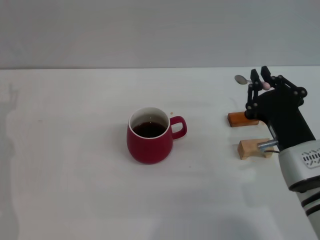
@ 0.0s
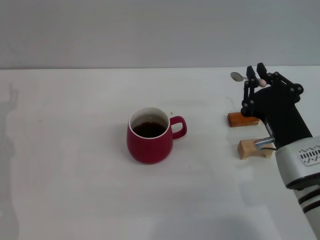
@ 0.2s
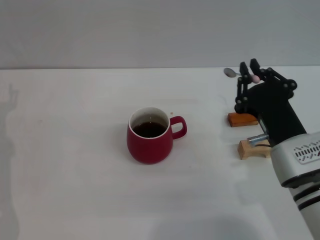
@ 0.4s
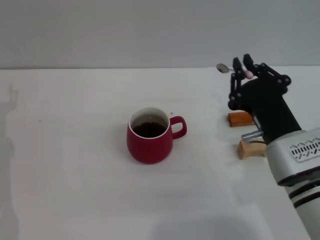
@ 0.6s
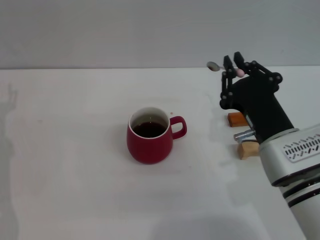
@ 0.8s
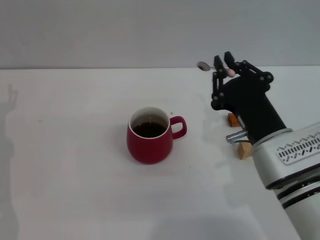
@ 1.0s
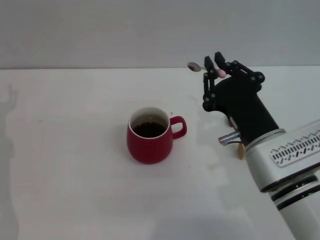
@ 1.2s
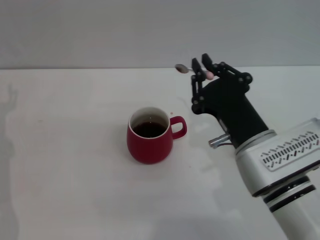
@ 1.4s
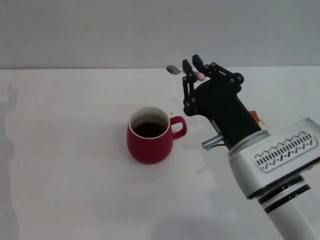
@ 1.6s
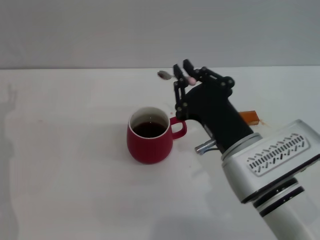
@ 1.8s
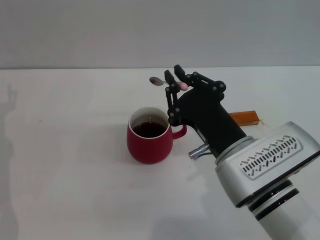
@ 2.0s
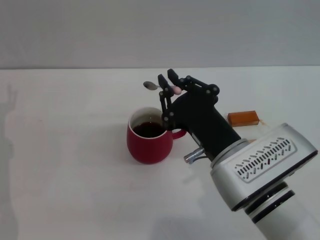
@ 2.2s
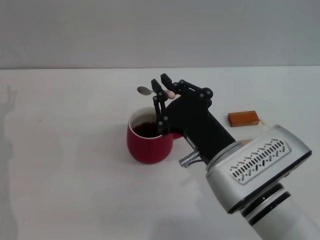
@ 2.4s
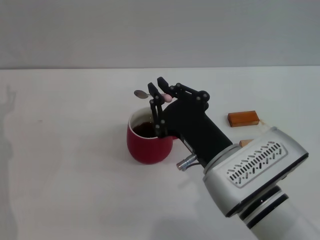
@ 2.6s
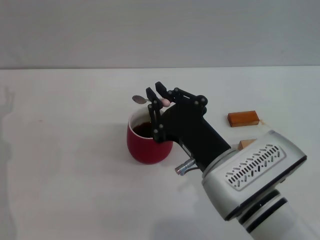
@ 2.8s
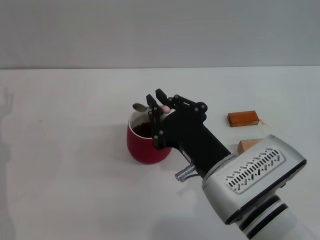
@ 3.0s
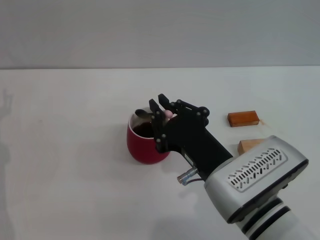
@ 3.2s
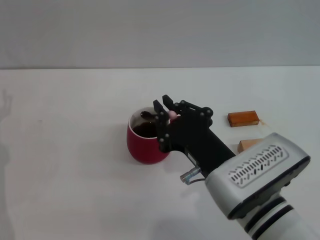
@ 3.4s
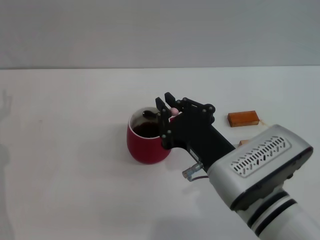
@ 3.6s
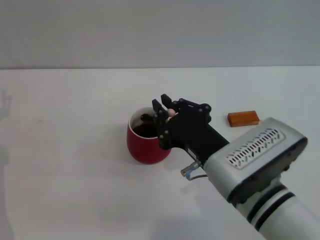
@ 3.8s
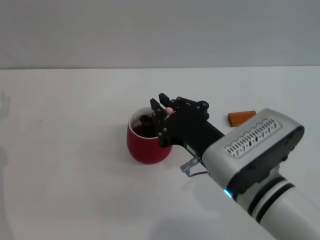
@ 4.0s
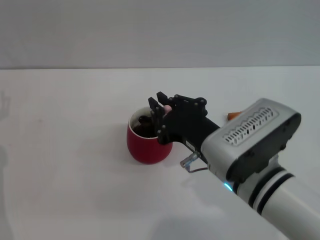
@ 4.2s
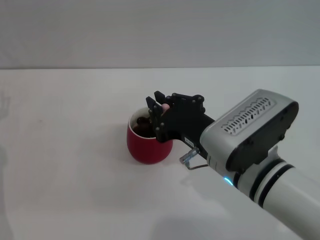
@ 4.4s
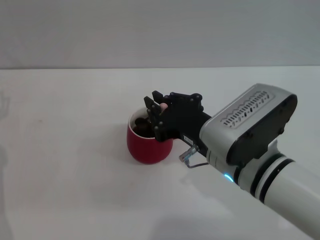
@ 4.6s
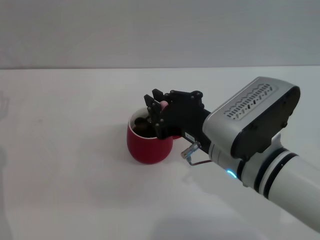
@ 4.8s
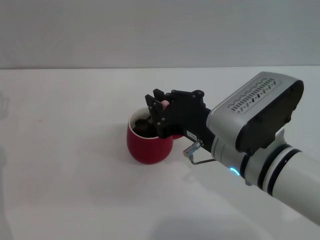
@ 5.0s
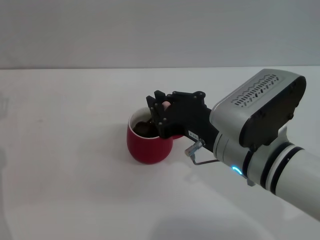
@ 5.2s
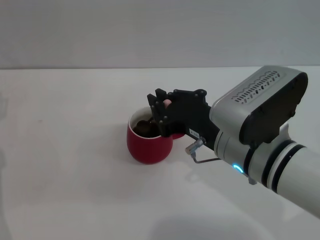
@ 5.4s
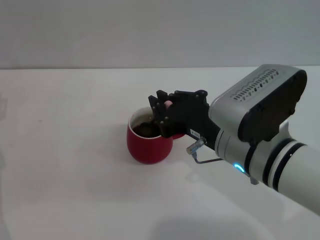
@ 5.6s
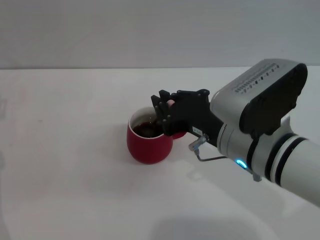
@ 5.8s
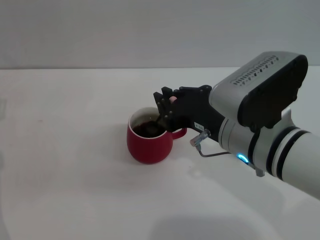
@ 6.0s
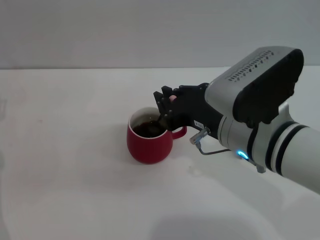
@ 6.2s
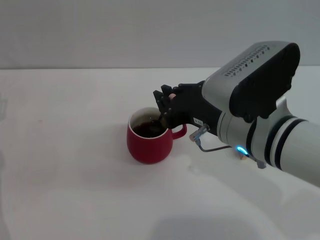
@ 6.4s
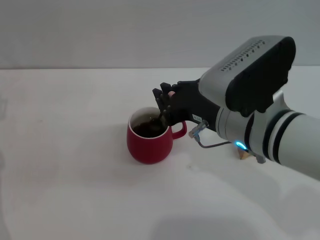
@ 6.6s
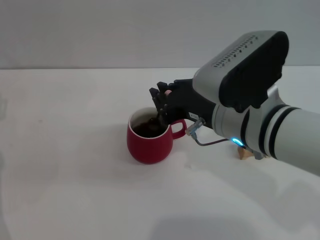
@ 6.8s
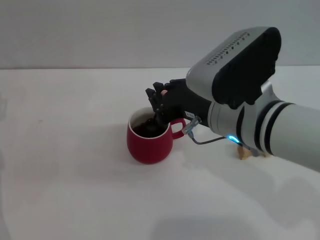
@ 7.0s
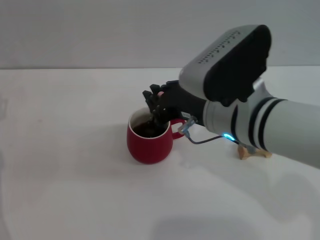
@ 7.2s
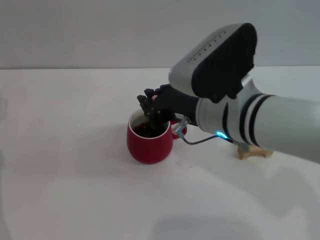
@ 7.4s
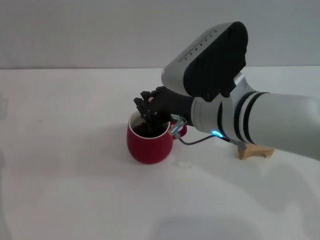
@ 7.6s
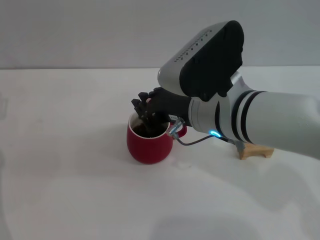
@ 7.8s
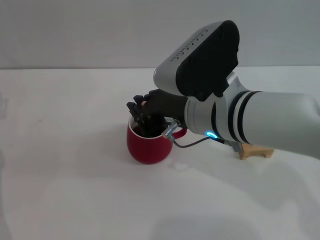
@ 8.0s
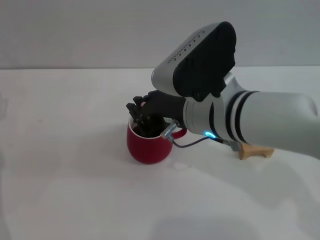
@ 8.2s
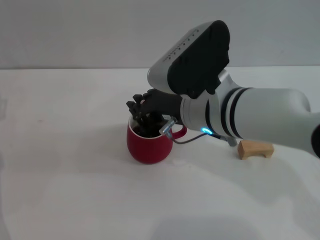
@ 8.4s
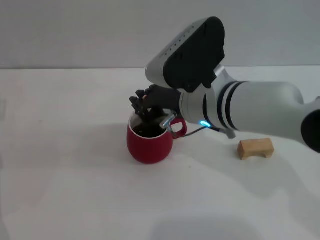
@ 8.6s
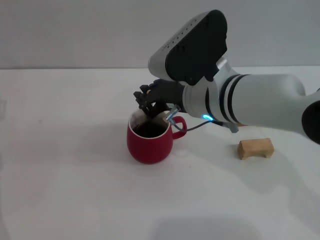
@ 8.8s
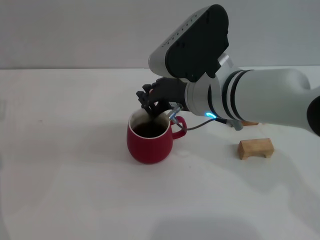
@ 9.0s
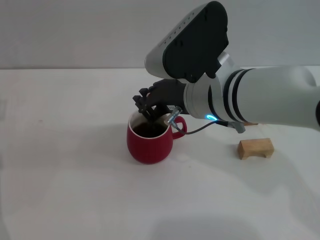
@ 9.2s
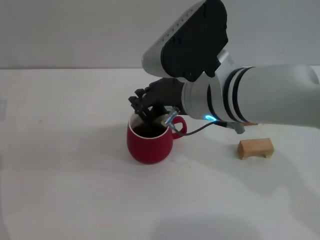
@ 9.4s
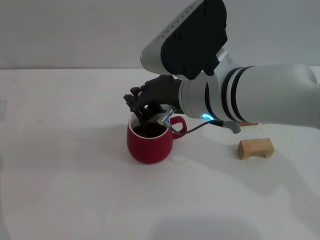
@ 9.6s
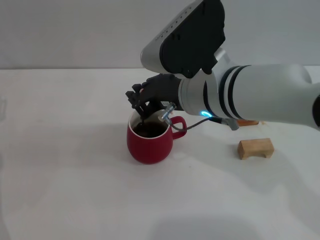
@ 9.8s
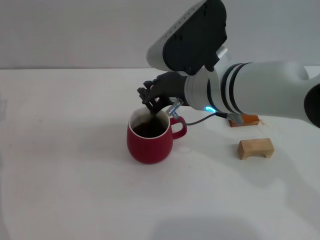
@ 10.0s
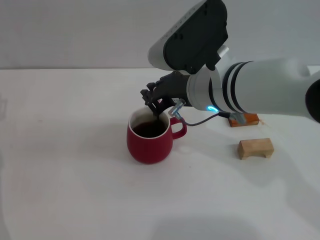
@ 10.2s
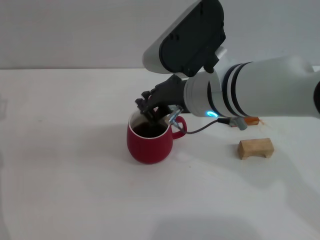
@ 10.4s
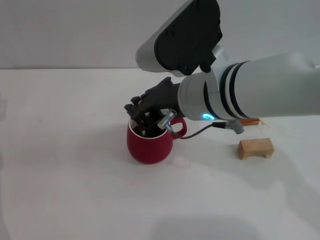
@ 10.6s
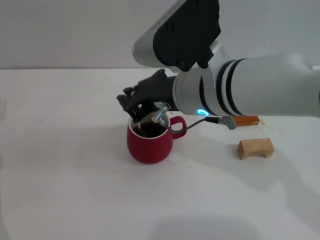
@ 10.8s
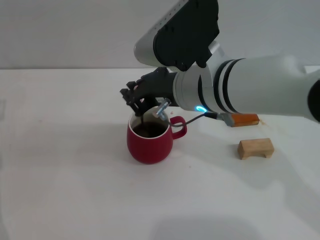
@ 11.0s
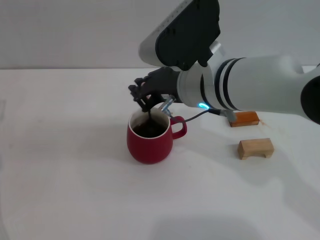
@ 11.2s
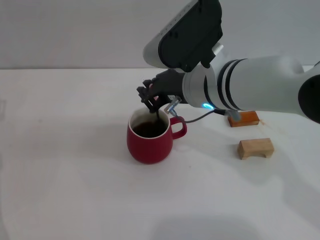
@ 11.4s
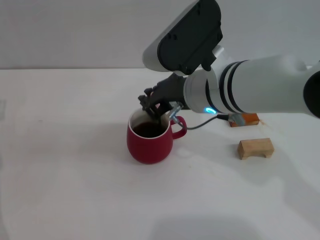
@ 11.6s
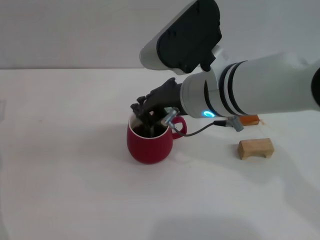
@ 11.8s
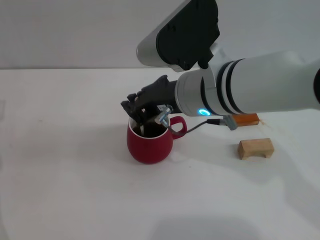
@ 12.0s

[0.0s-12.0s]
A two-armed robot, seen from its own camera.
Task of the whole recording: Move the red cup to the center, lift the pink spoon, stir it three times in the cup, and put the spoon into the cup.
0.0s to 1.6s: The right gripper travels to the left by some 5 cm.
1.6s to 3.0s: There are only small adjustments of the grippers.
3.0s to 4.4s: The grippers stay close to where they were, moving slightly.
4.4s to 6.0s: The grippers stay close to where they were, moving slightly.
6.0s to 7.6s: The grippers move only a little.
7.6s to 12.0s: The grippers stay close to where they were, moving slightly.

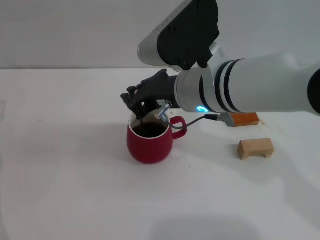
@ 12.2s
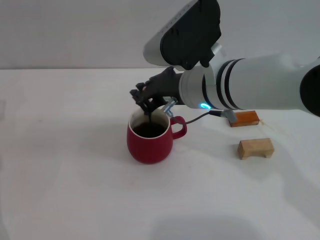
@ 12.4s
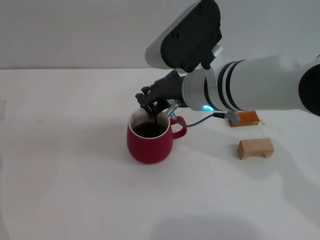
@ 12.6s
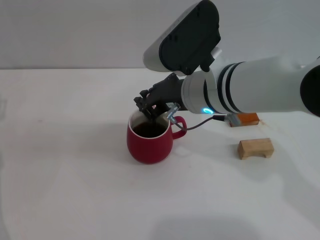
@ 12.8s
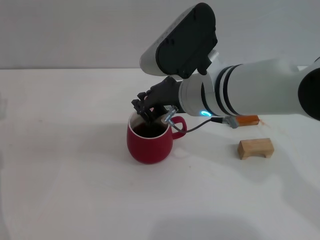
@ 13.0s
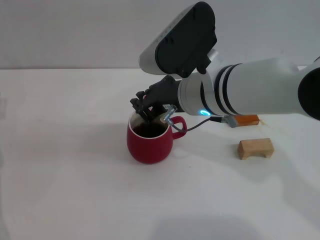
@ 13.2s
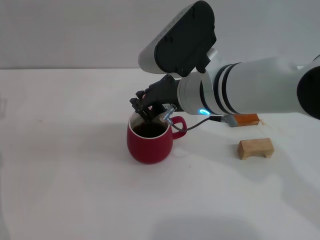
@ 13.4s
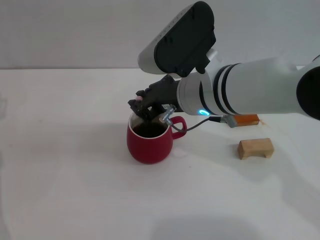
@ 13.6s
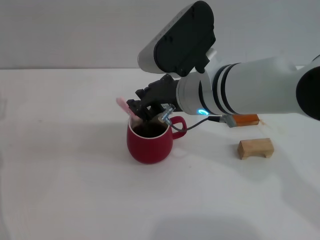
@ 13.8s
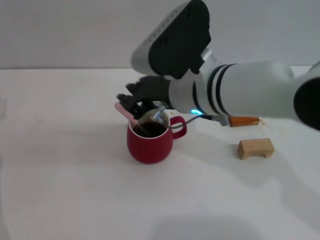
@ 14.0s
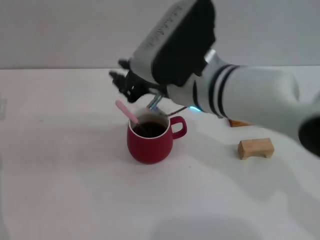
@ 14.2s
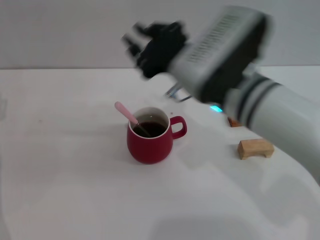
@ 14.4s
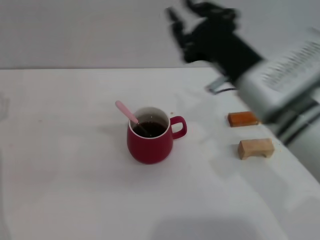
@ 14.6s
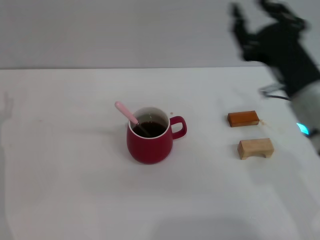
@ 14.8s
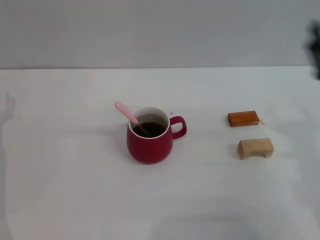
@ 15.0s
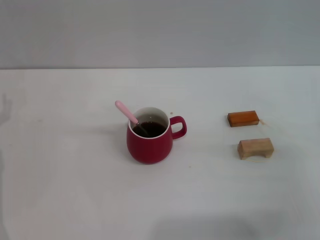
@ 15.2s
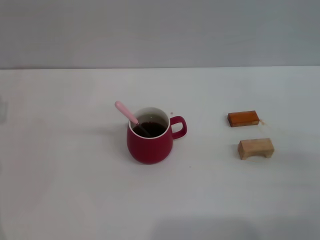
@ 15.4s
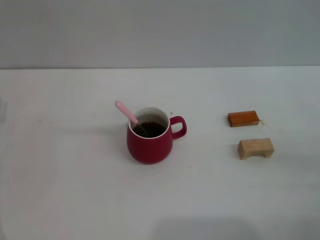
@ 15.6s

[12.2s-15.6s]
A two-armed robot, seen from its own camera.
Task of the whole recording: Move the red cup to the center, lift the pink spoon, stir it three times in the cup, and put the spoon into the cup.
12.2s to 13.8s: The grippers make only small movements.
13.8s to 15.6s: The right gripper heads to the right, backward and downward, covering about 35 cm, and opens its fingers.

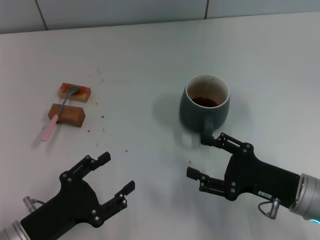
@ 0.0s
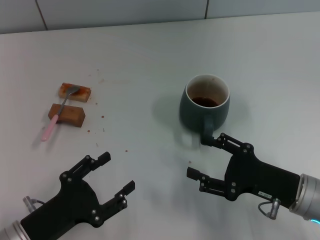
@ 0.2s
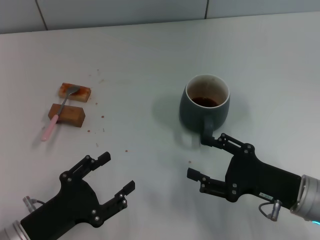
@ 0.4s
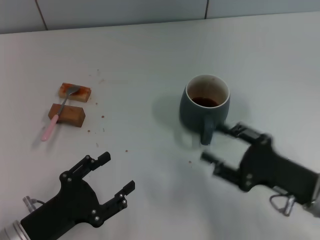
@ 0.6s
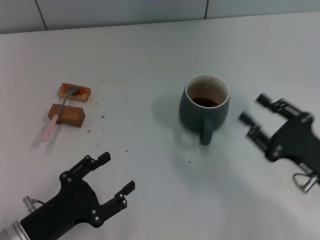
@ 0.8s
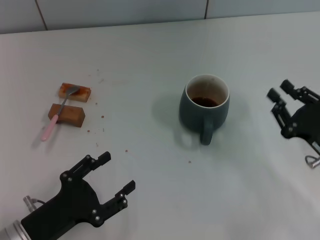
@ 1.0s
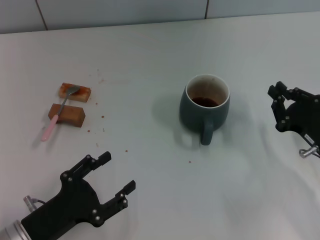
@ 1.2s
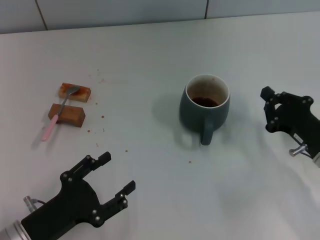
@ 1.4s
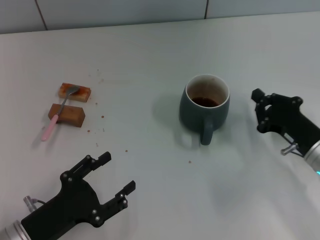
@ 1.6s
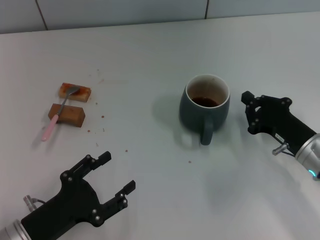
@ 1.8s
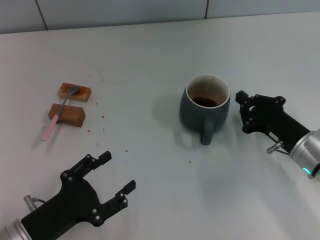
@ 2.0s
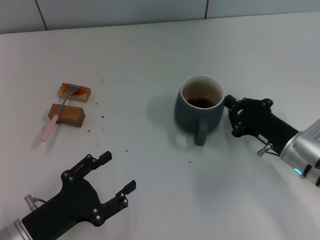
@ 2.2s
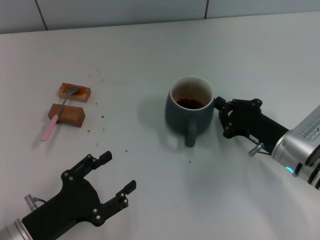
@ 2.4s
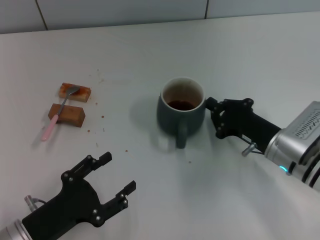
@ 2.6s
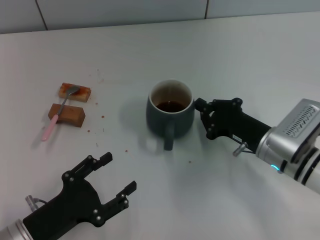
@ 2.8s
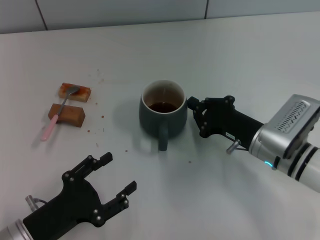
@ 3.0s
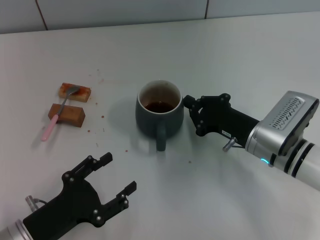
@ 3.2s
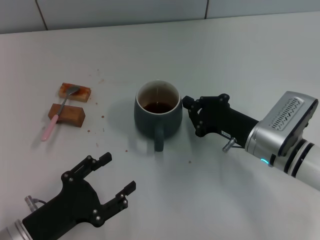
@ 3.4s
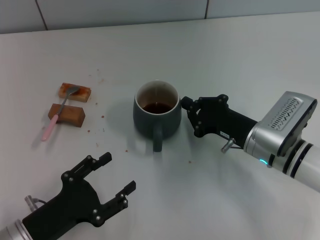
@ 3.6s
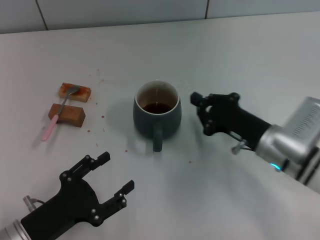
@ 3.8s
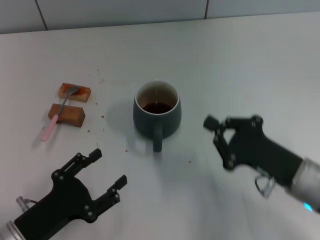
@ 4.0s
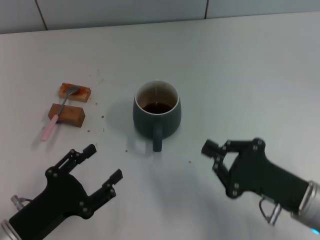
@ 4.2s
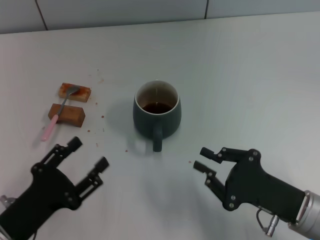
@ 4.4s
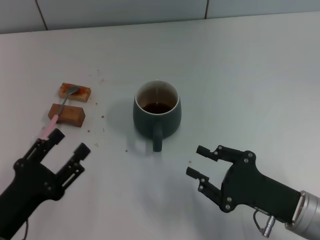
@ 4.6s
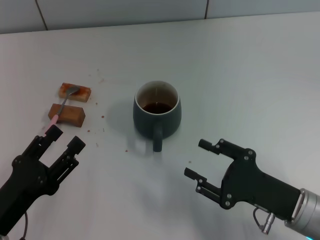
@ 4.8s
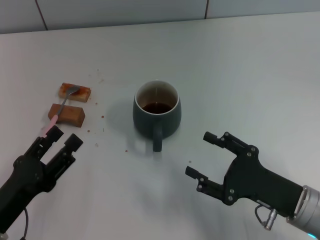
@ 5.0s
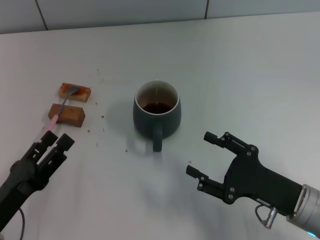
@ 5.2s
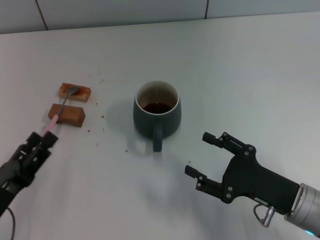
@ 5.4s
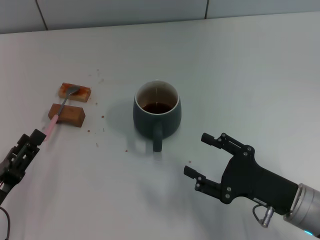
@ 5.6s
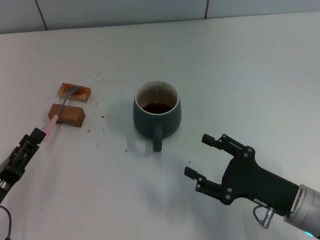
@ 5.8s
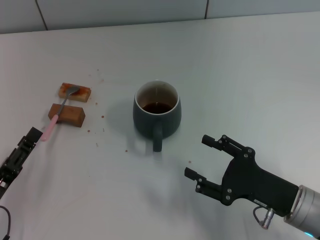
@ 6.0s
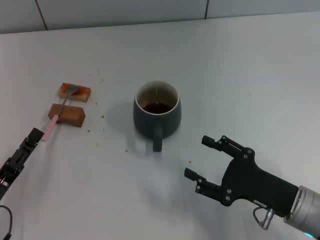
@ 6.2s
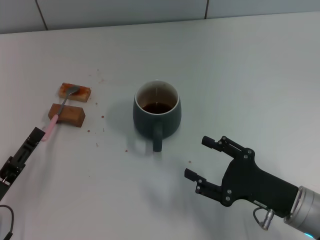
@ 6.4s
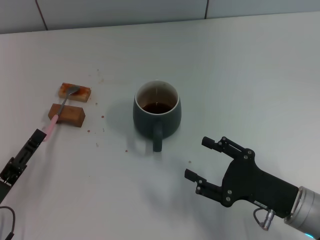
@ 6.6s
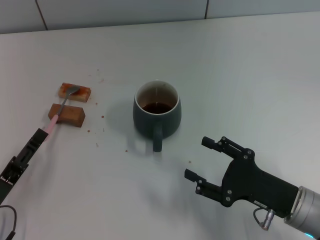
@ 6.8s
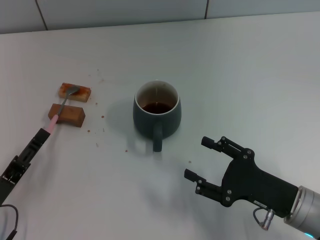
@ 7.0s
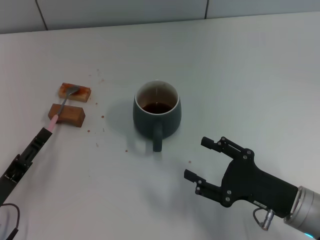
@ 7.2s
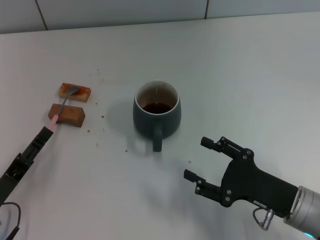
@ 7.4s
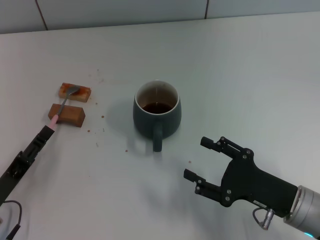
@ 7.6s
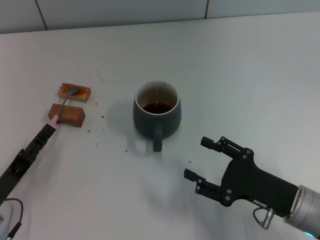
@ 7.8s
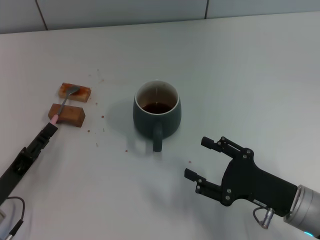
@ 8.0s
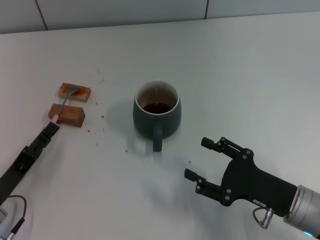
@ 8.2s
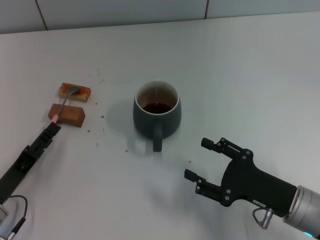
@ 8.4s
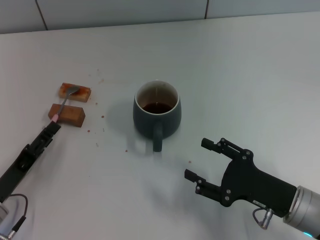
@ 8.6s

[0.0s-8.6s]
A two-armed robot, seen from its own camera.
Task of the whole recording: Move the grey cup to the center, lift the pink spoon, stir it three times in the cup, and put the spoon into the cup.
Step, 0.0s to 3.6s: Move the cup with coffee to the center of view with the right gripper.
0.0s to 1.4s: The right gripper shifts by approximately 5 cm, and closes up.
1.4s to 2.8s: The right gripper goes about 10 cm to the left.
2.8s to 4.4s: The right gripper heads backward, covering about 10 cm.
4.4s to 5.8s: The right gripper opens its fingers.
5.8s to 8.6s: The grippers move only a little.
